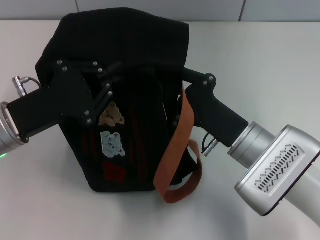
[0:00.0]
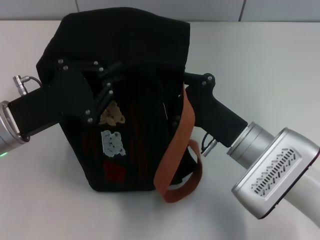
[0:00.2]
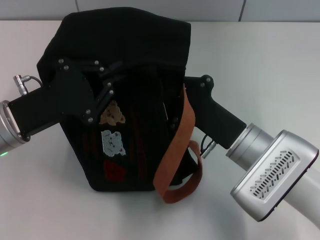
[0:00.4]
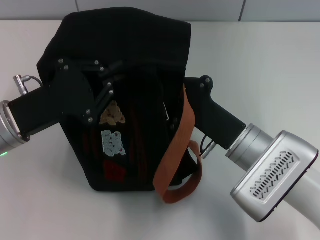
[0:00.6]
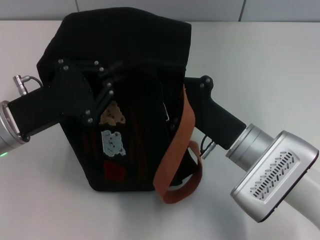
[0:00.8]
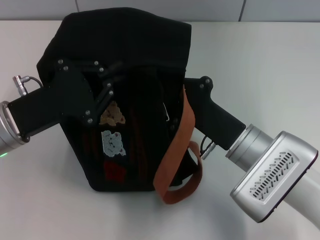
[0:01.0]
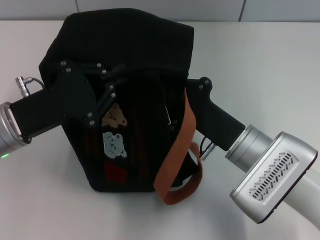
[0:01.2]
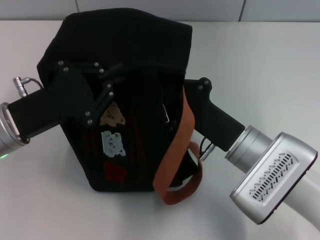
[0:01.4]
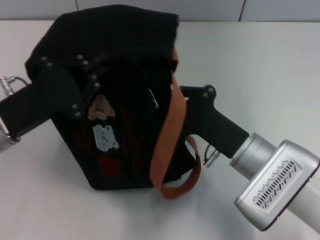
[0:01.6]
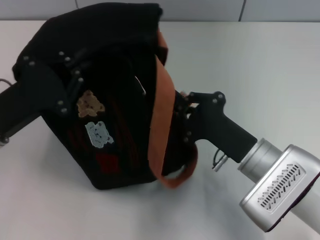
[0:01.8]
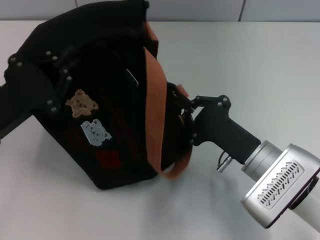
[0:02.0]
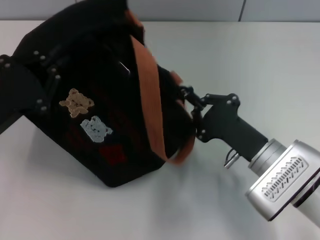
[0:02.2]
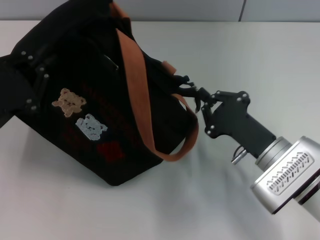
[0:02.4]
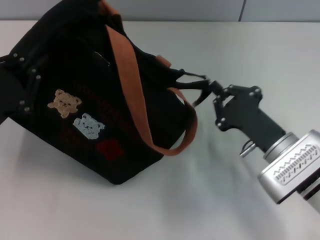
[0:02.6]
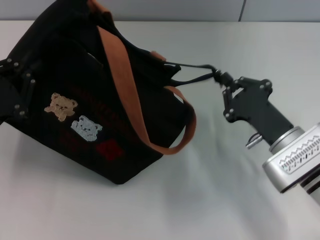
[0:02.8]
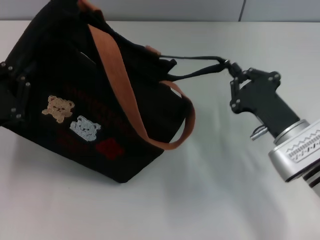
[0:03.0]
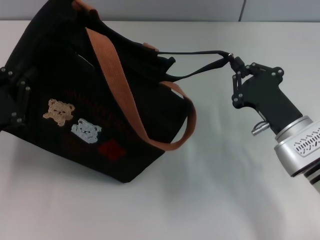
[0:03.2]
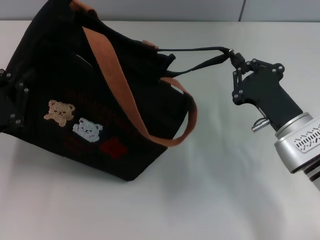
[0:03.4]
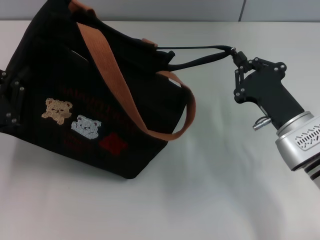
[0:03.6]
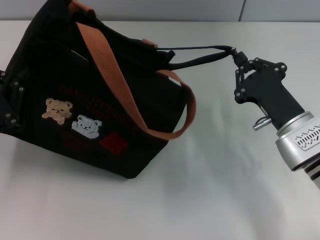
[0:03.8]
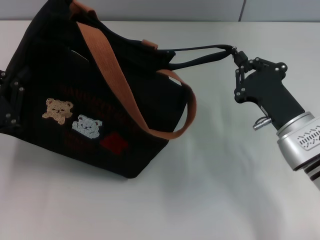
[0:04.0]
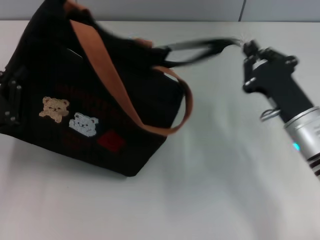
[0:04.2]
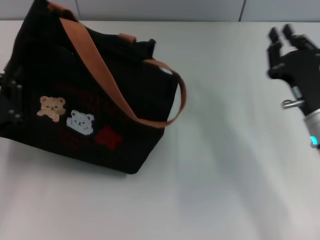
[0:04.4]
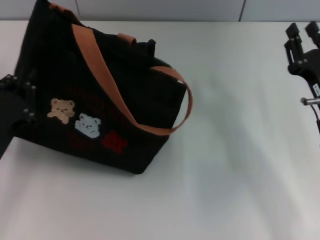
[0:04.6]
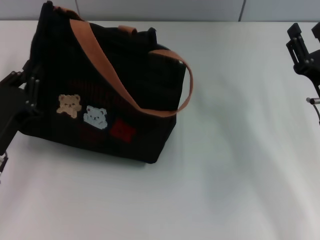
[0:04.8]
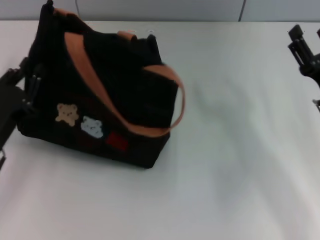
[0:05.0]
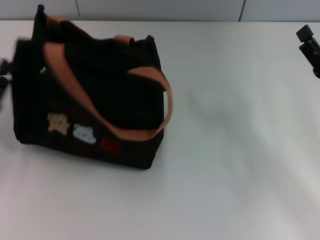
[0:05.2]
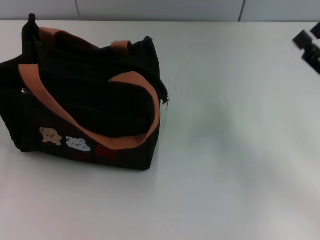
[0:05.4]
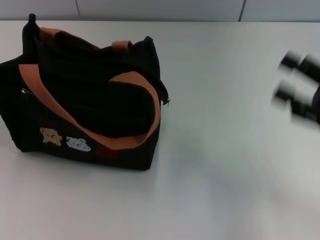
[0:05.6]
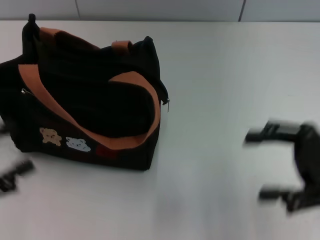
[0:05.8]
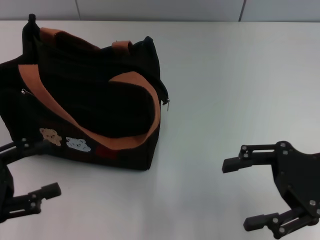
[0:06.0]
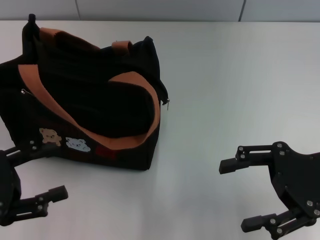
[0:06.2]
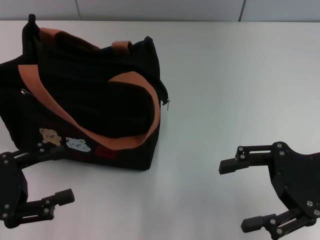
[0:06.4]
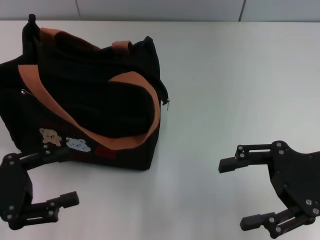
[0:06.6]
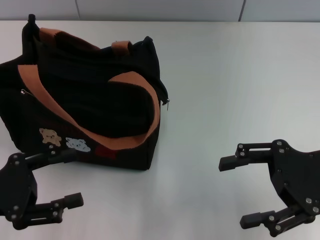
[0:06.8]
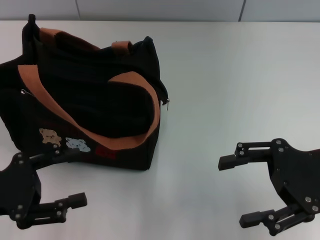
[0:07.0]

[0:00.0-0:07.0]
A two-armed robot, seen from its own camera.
Step, 0.0 to 4.4 s: Pull open the zipper with your right hand.
Step, 4.8 to 5.2 s: Grab the bag with your left hand.
0.0 to 1.4 s: The right gripper closes its fingers.
1.4 to 2.8 s: The right gripper heads to the right, covering roughly 5 cm. The left gripper shifts roughly 5 cm to the left.
4.2 to 5.6 s: The left gripper heads to the left and backward, covering about 10 cm, and opens. Meanwhile the right gripper is displaced to the right and upward by some 10 cm, and opens.
5.6 to 7.0 s: The right gripper heads to the left, covering about 5 cm; the left gripper moves to the right, about 5 cm.

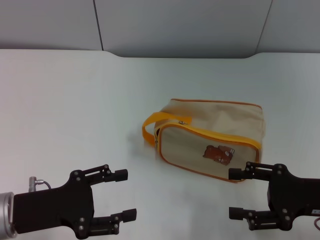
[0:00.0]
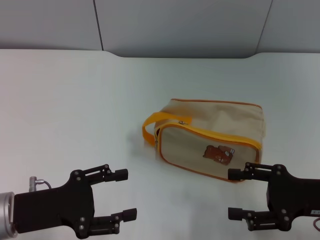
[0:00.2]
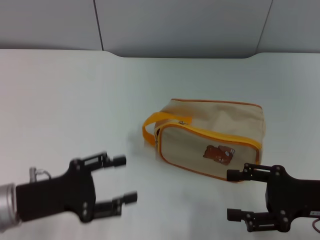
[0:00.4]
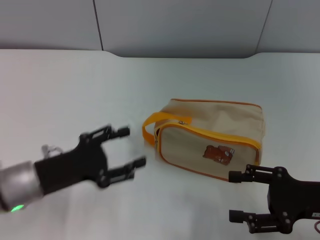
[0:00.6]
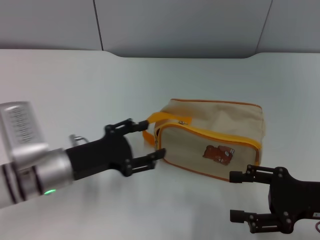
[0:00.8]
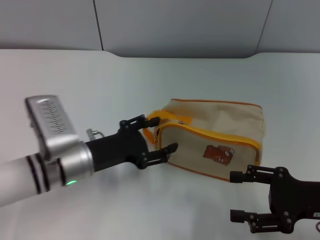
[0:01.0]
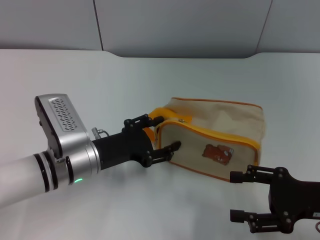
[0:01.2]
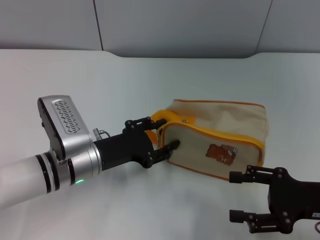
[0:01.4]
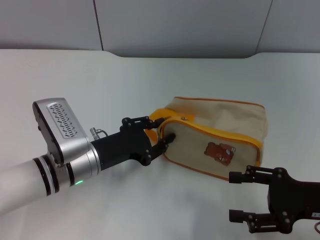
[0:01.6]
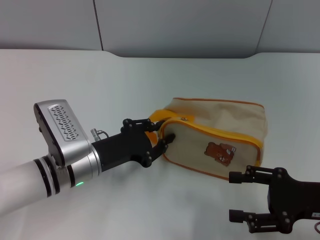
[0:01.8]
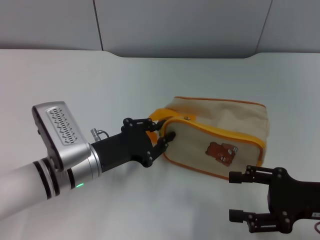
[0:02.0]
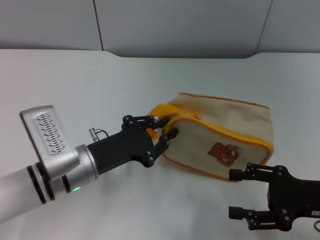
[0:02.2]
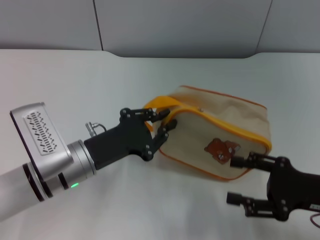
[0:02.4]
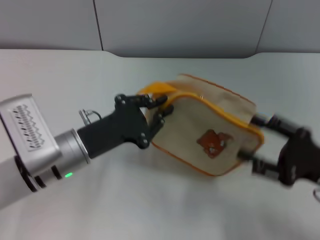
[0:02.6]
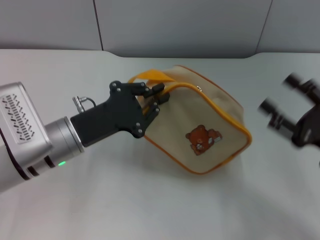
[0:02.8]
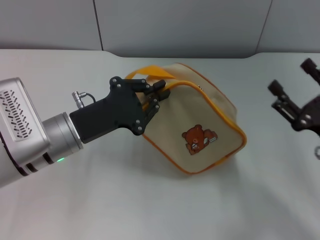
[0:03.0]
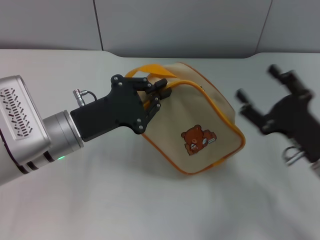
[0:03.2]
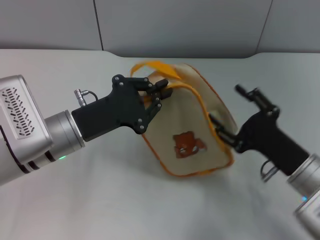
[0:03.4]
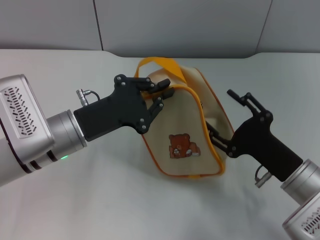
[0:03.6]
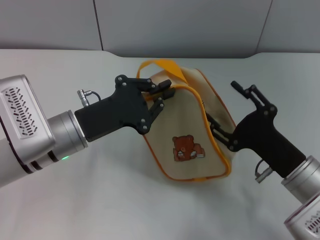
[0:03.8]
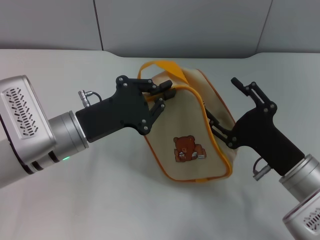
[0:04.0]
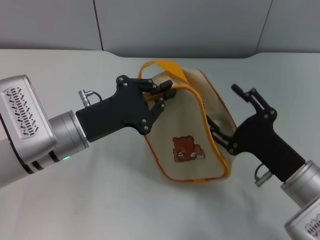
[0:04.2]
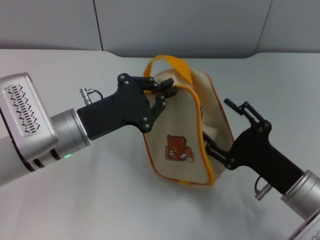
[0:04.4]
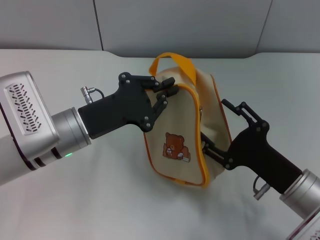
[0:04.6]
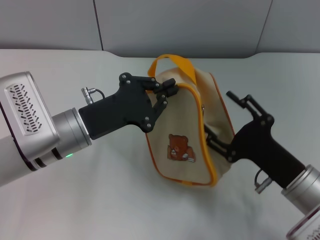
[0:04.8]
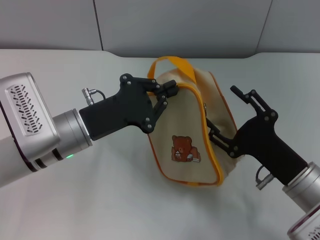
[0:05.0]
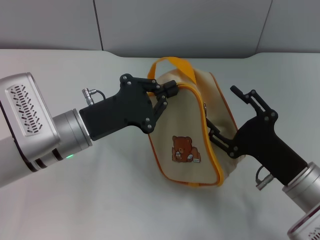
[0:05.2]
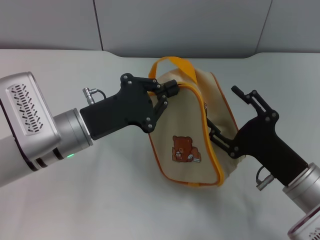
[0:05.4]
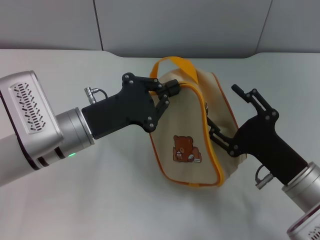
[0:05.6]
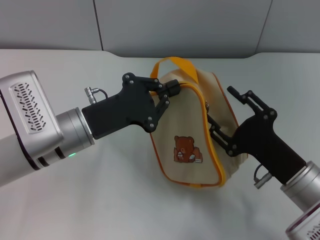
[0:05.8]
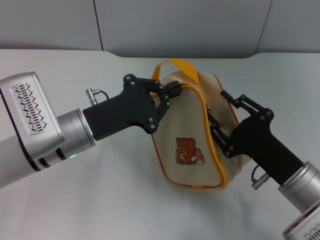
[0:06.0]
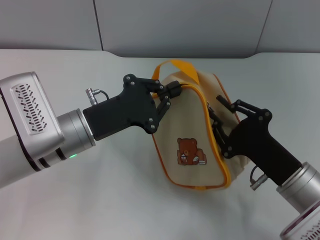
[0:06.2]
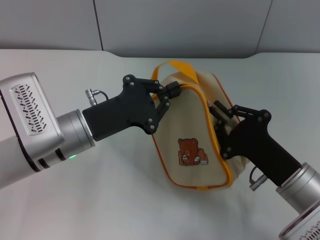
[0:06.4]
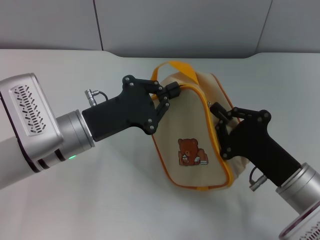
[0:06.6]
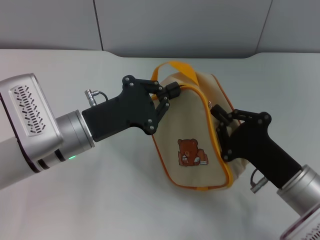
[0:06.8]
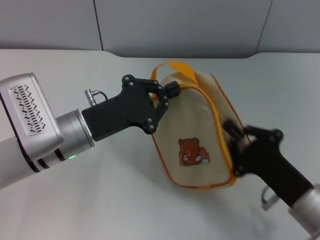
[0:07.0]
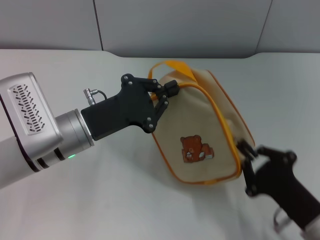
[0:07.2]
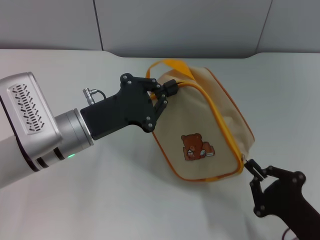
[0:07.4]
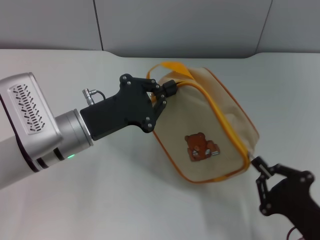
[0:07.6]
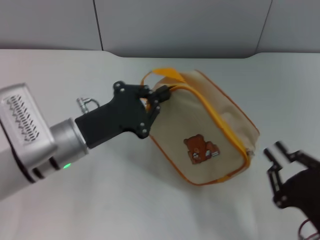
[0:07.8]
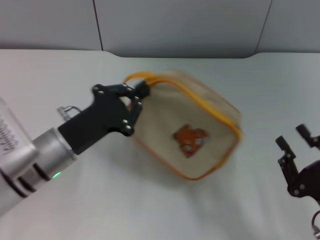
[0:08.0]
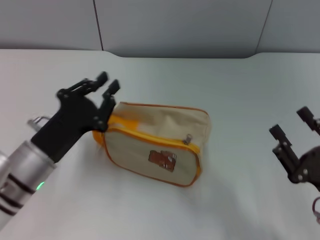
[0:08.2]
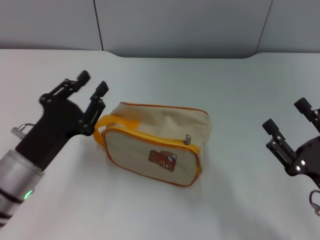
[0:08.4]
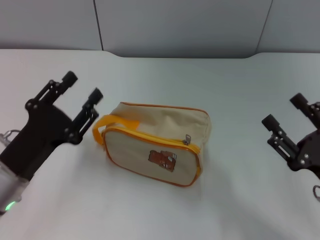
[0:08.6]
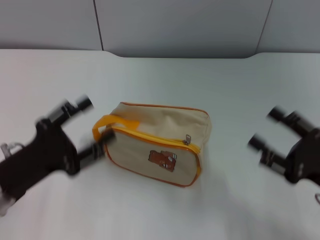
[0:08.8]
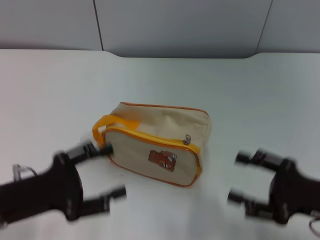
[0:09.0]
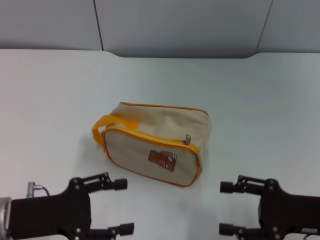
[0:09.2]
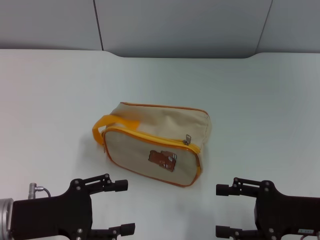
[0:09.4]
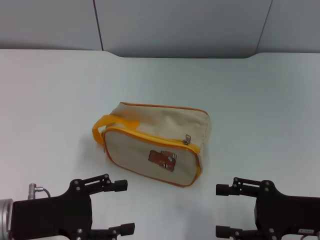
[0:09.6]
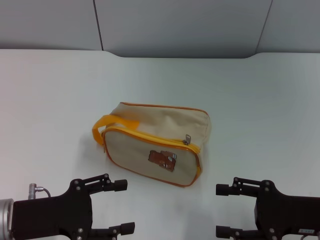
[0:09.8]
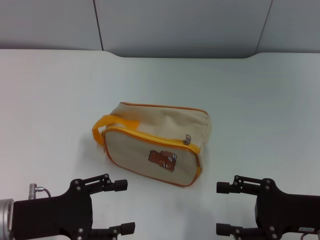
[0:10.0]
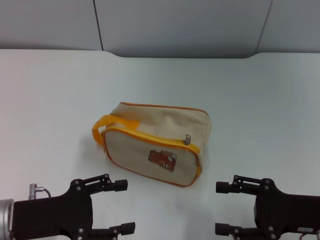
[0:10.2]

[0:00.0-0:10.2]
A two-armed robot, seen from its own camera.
Step, 0.0 to 3.0 s: Pick up the bag with left gripper.
Step, 3.2 to 7.8 s: Unzip the zipper of bag with right gripper.
Step, 8.0 to 8.4 s: Place the bag on the table with left gripper.
0.0 to 1.4 s: The left gripper shifts some 15 cm to the right and forward.
1.4 to 3.0 s: The left gripper changes place by roughly 5 cm, and closes up.
3.0 to 4.4 s: The right gripper moves to the left, about 5 cm.
4.4 to 5.8 s: Neither gripper changes place.
5.8 to 7.2 s: The right gripper travels backward by roughly 5 cm, and closes up.
7.2 to 8.8 s: The left gripper moves to the left and backward, some 15 cm, and opens up; the right gripper heads to the right, covering some 5 cm, and opens its fingers.

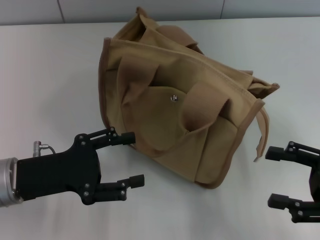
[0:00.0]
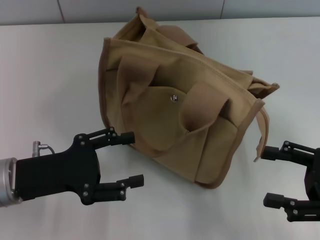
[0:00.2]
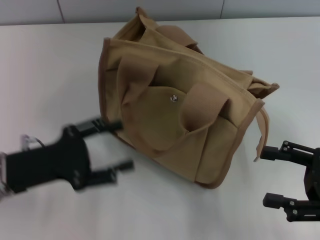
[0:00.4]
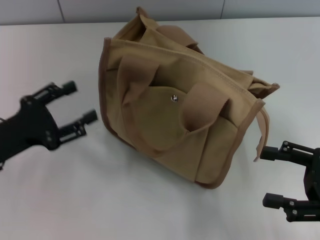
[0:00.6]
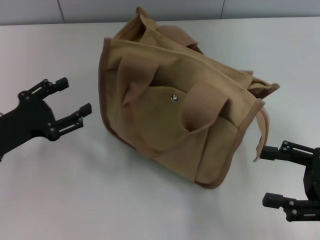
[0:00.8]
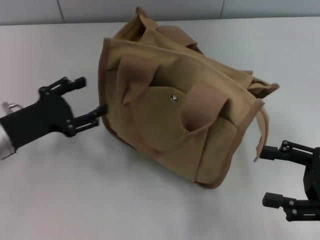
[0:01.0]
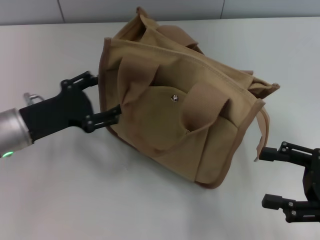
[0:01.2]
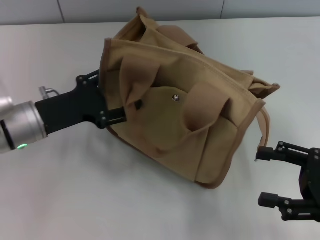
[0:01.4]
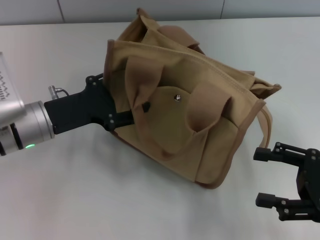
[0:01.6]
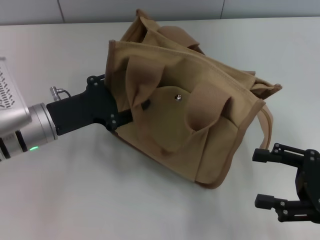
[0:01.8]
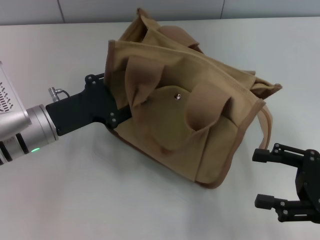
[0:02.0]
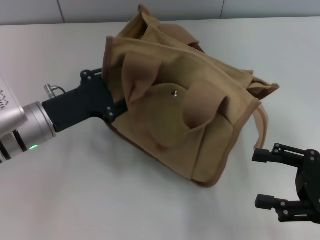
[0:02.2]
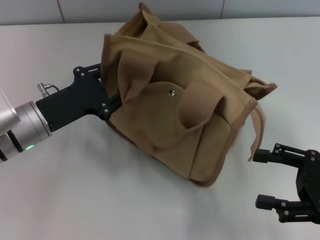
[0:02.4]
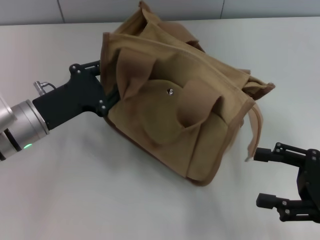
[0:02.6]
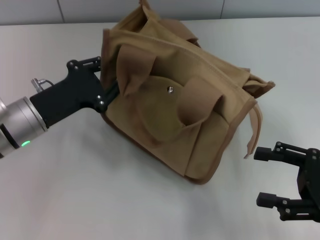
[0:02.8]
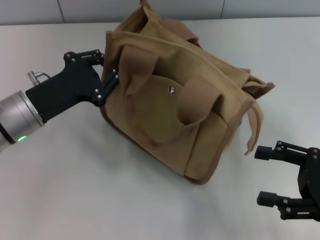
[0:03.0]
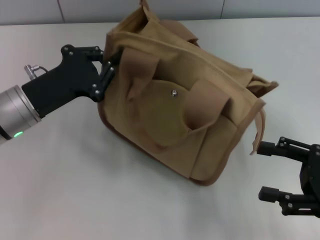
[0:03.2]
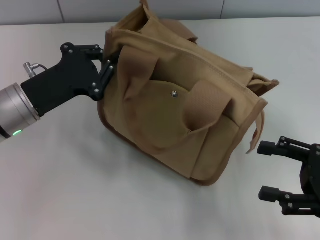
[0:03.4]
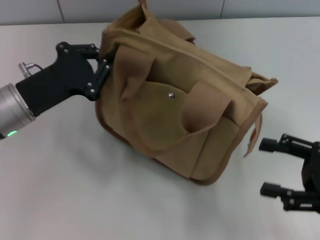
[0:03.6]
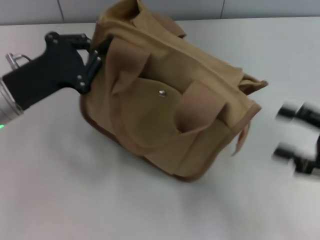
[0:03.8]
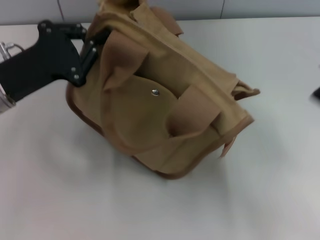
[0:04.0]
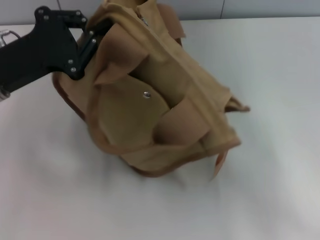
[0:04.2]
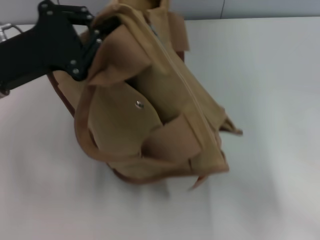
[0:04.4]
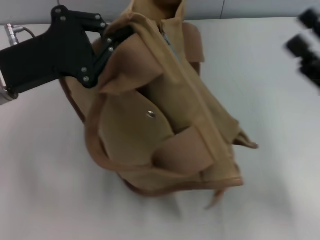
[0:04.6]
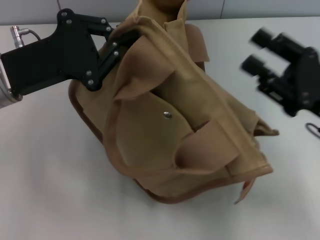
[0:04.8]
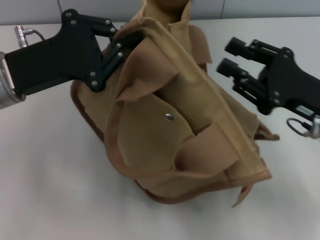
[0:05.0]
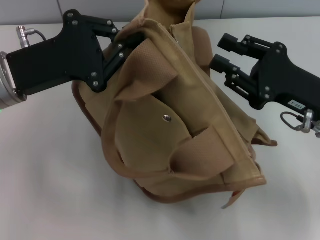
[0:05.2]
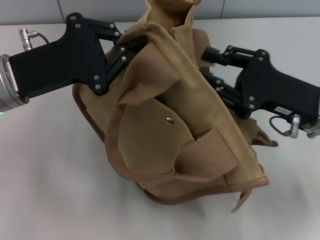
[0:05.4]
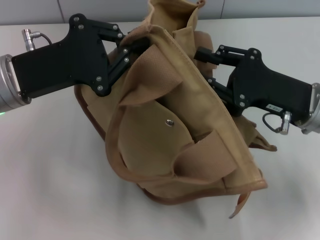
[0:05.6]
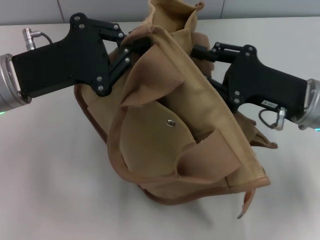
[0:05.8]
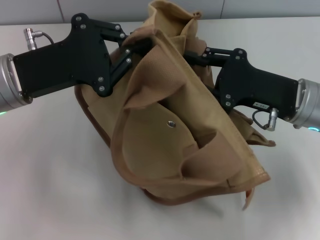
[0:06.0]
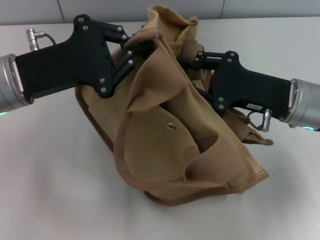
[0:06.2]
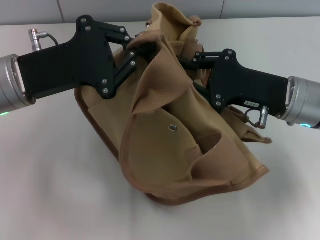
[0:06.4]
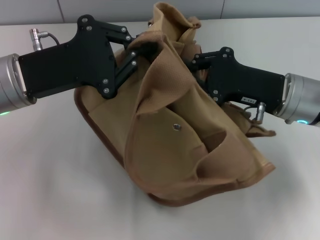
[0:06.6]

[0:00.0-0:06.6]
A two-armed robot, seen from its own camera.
0.0 to 1.6 s: The left gripper heads forward, covering approximately 10 cm.
1.6 to 3.2 s: The left gripper closes up.
3.2 to 5.0 s: The left gripper is displaced upward by roughly 5 cm. The right gripper goes some 10 cm forward and to the left.
5.0 to 6.6 s: The right gripper moves approximately 5 cm, and closes.
